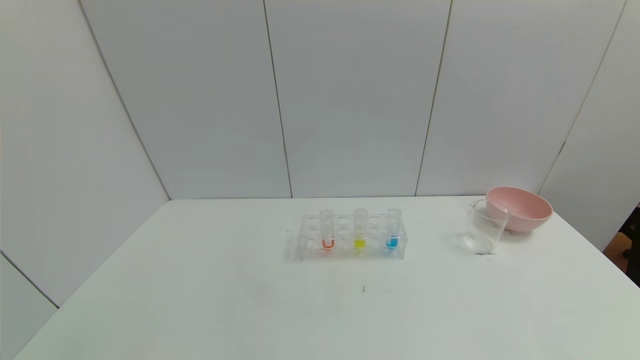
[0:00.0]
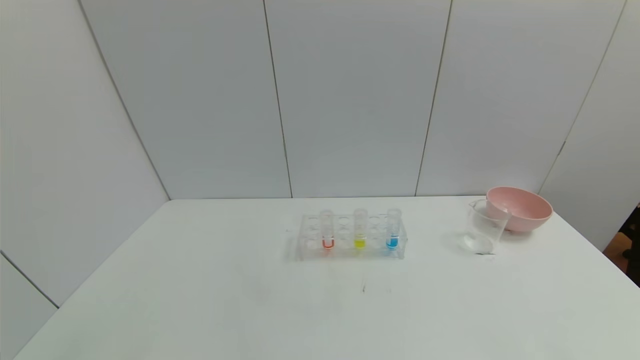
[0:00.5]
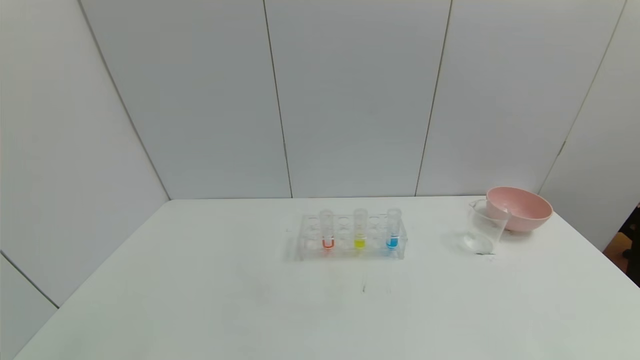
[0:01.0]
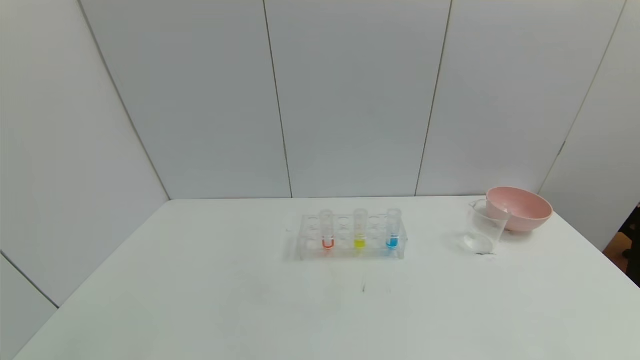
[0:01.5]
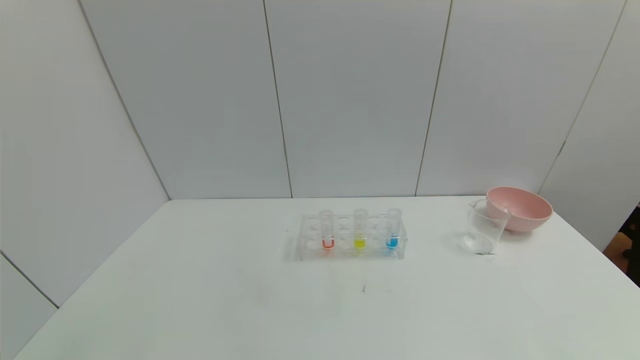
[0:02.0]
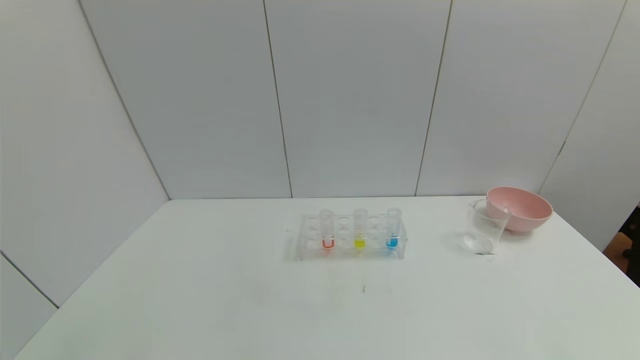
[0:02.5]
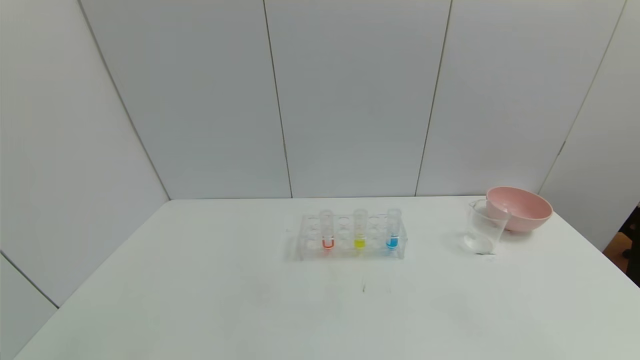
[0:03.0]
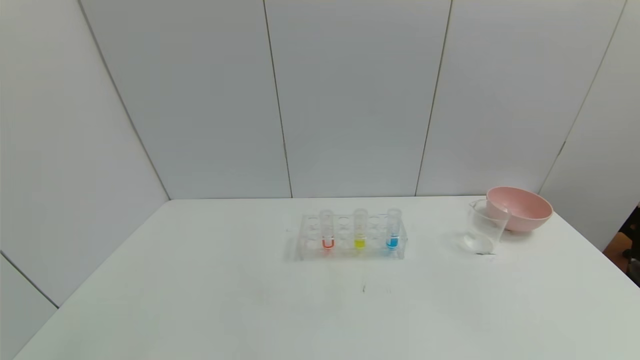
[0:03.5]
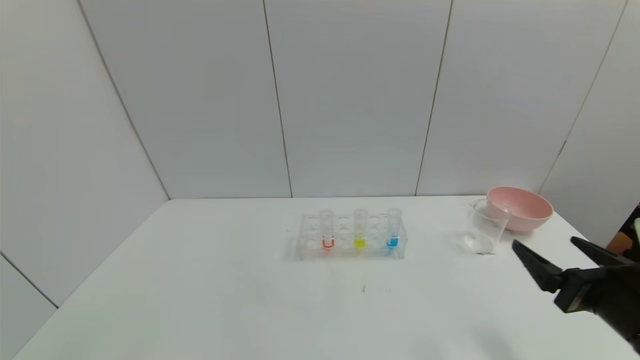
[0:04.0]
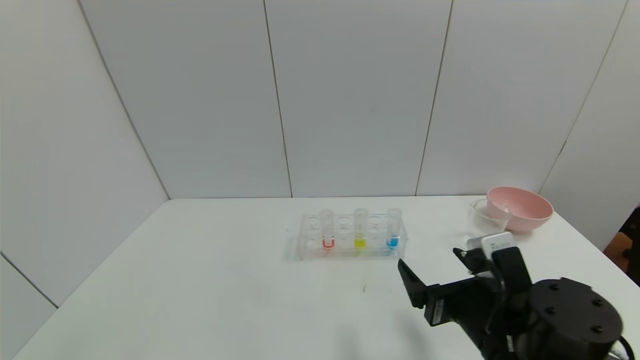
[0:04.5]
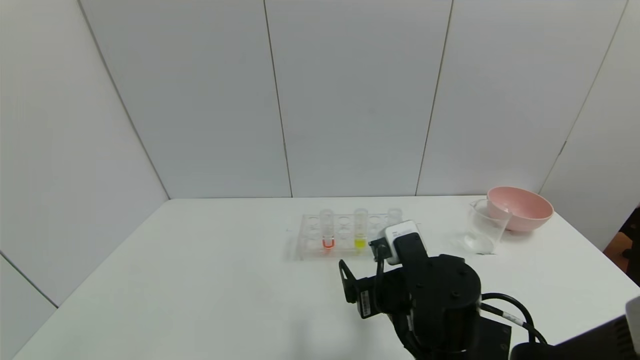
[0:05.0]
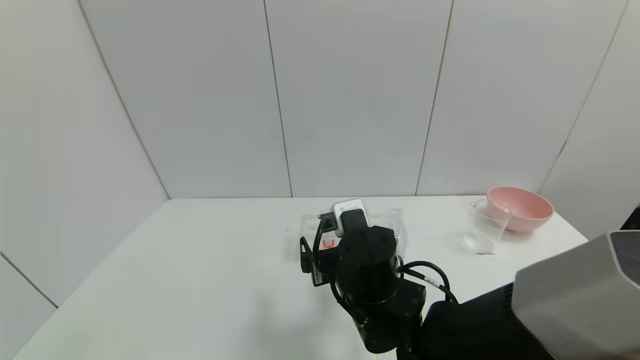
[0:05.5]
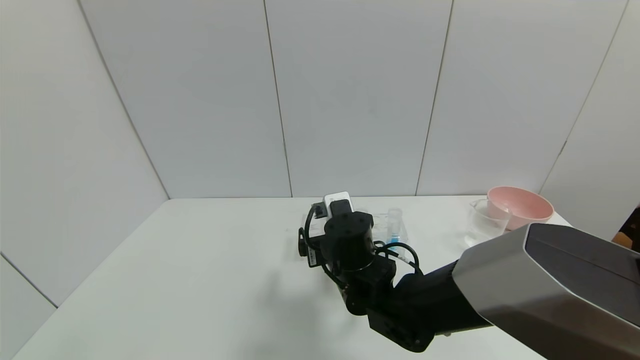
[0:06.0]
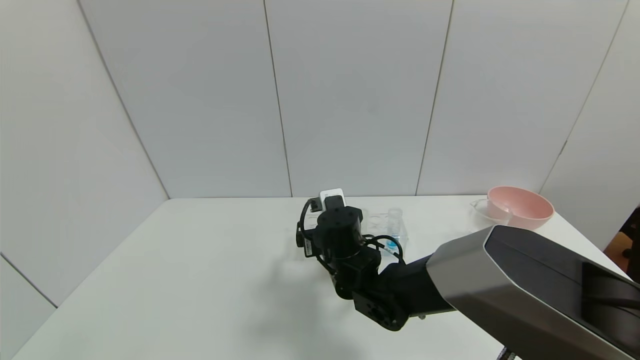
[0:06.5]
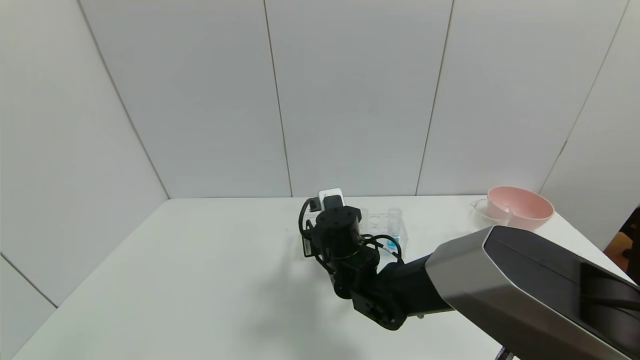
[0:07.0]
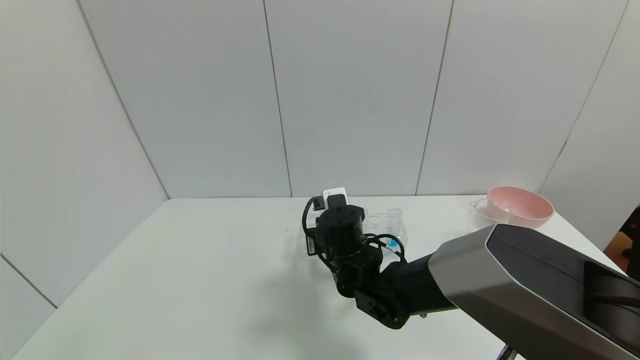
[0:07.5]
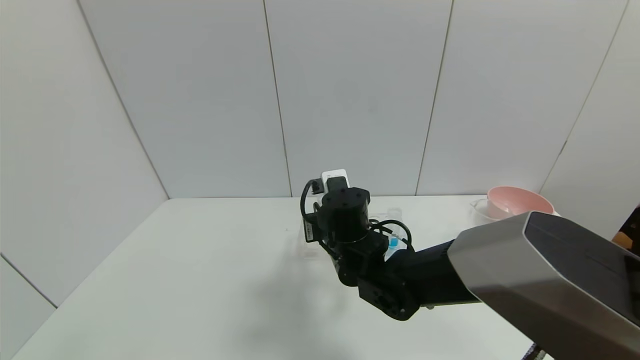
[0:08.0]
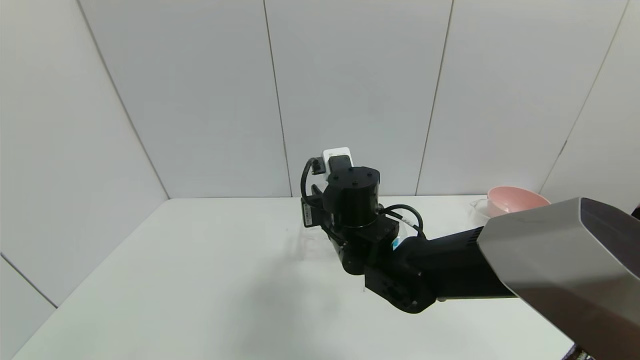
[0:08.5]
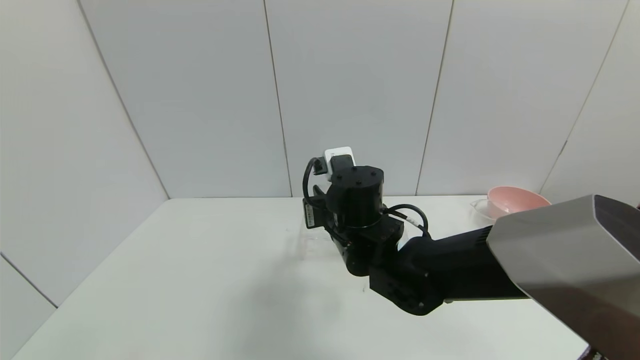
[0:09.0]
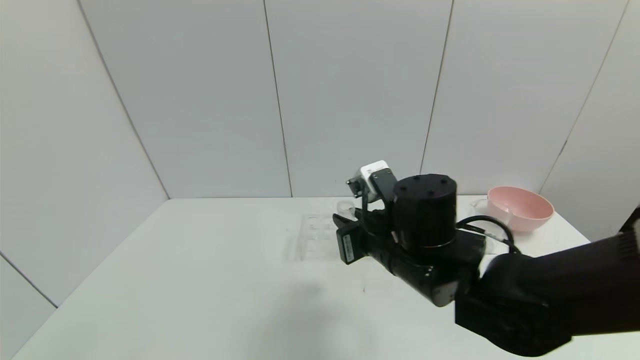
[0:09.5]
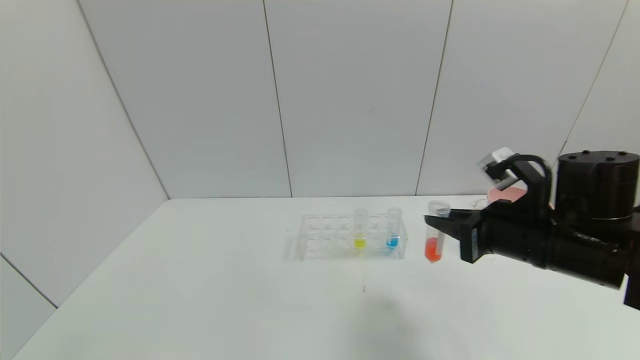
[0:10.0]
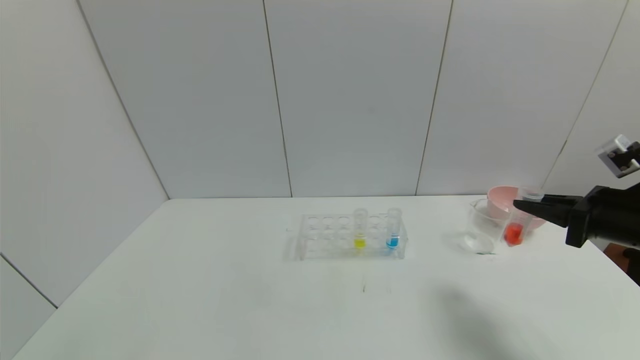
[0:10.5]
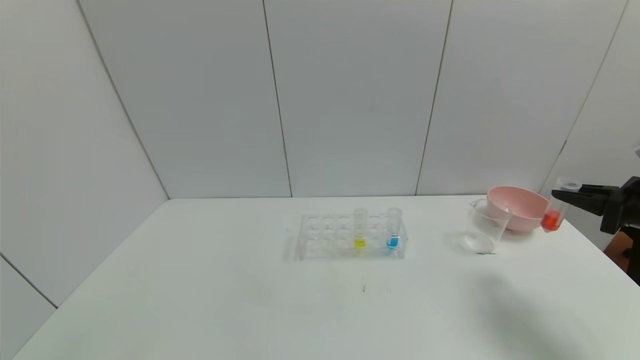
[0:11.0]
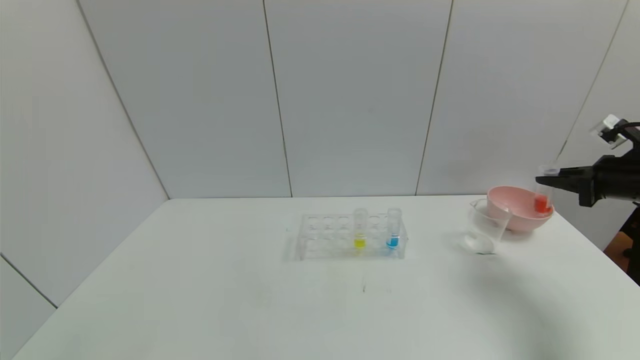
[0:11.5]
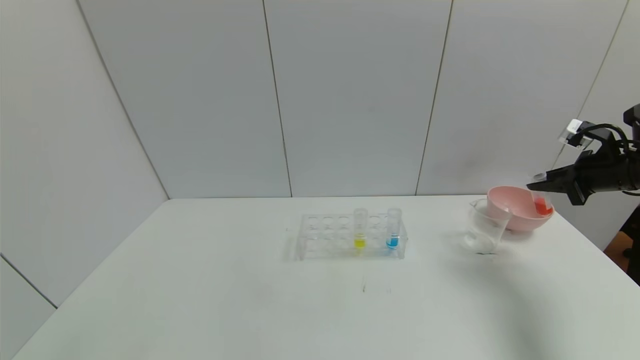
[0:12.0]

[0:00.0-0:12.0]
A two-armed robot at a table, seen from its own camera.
Task of the whole recording: pick up the test tube with red pigment and the test tube with blue pigment by grippers and pour them into the container.
Step, 0:00.0 to 0:07.5: Grasp the red reagent with the right gripper.
0:00.0 to 0:02.0: Neither gripper changes place.
0:02.0 to 0:04.0: The right gripper travels forward by some 20 cm.
0:04.0 to 0:06.0: The right gripper shifts some 30 cm to the left and forward.
0:06.0 to 0:08.0: The right gripper closes up.
0:08.0 to 0:10.0: The right gripper goes some 25 cm to the right.
0:10.0 to 0:12.0: The right gripper travels to the right and forward by roughly 25 cm.

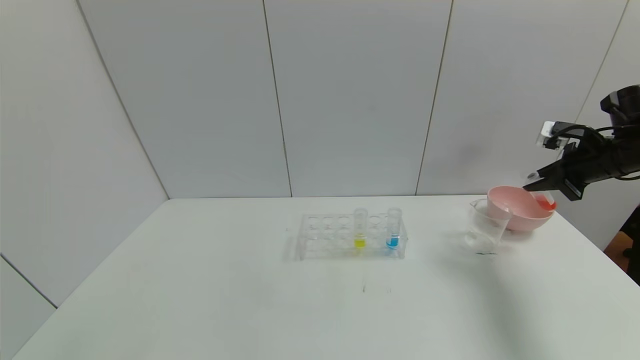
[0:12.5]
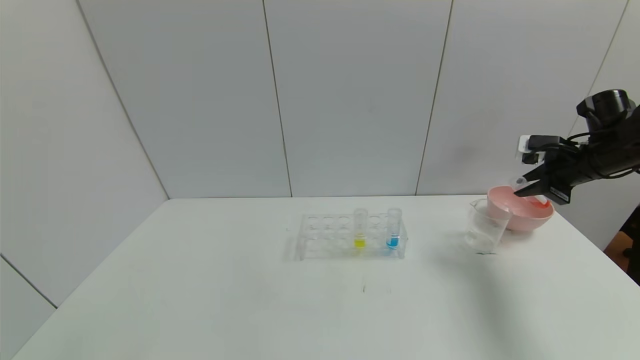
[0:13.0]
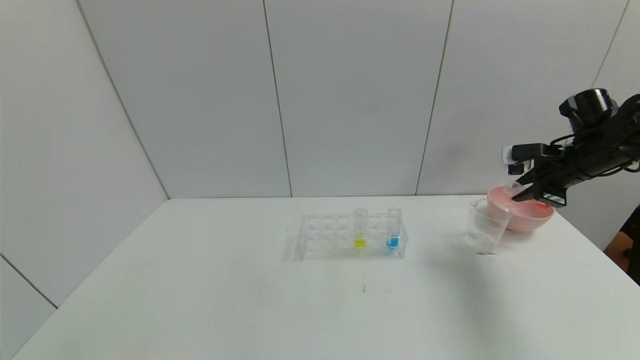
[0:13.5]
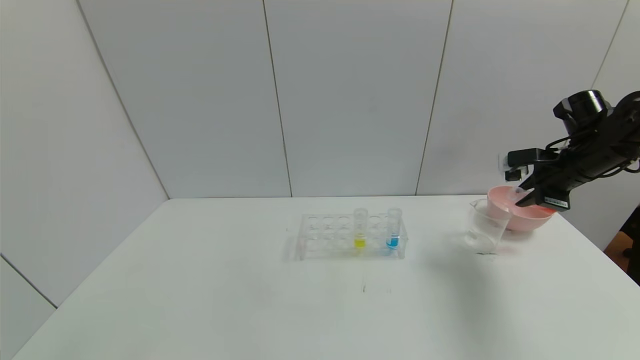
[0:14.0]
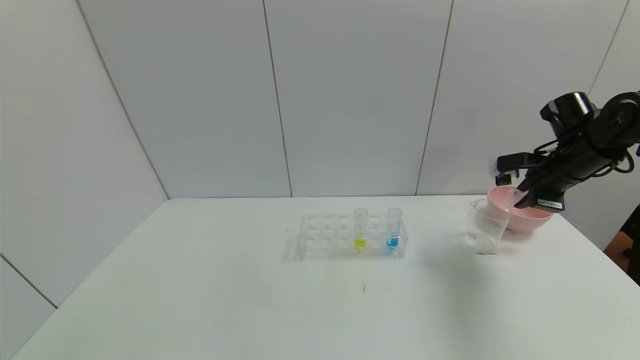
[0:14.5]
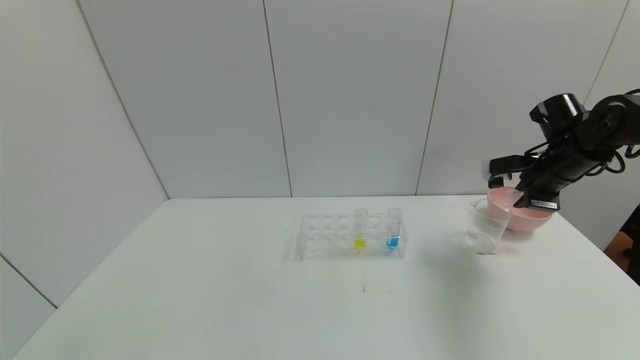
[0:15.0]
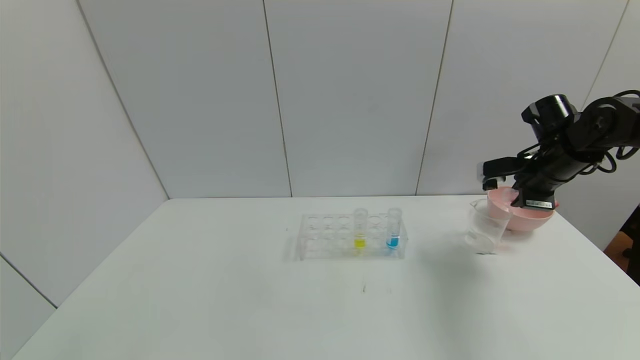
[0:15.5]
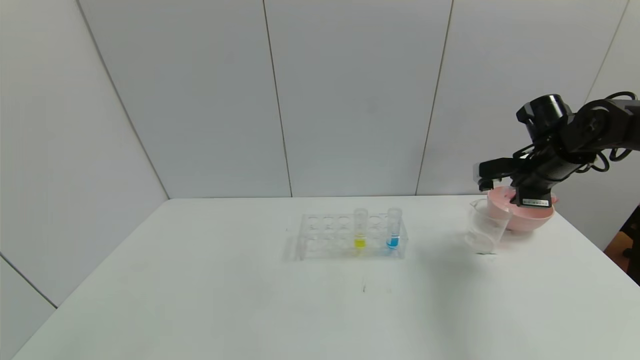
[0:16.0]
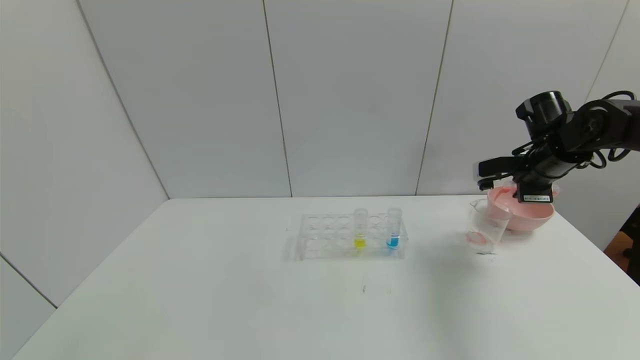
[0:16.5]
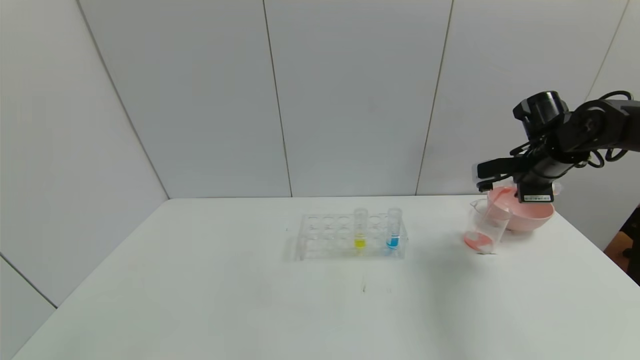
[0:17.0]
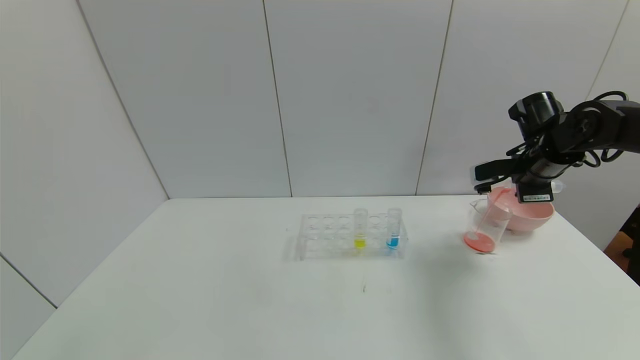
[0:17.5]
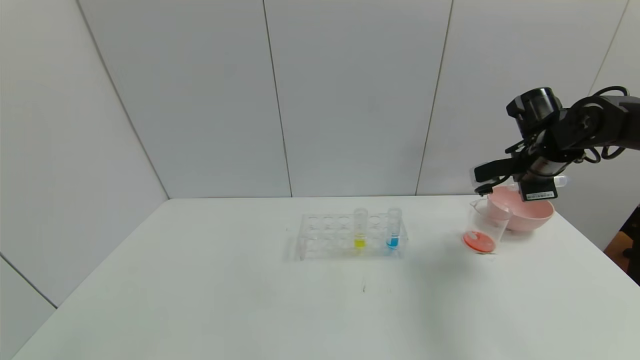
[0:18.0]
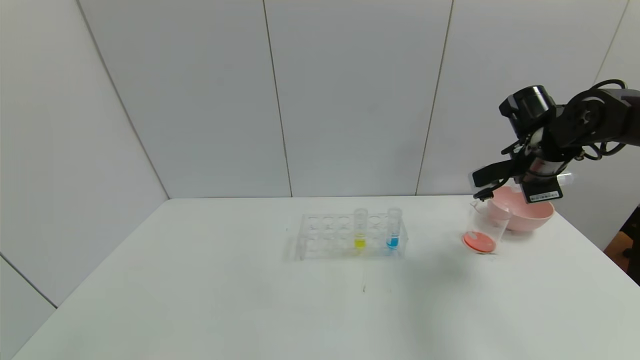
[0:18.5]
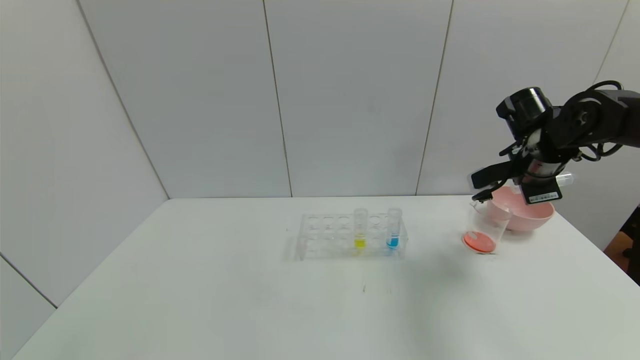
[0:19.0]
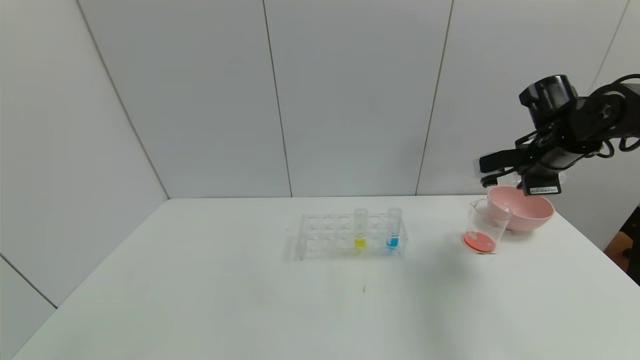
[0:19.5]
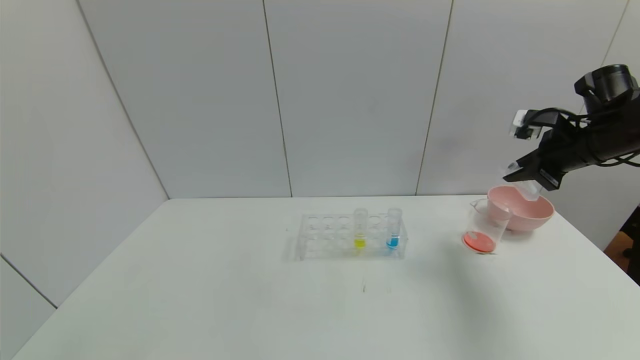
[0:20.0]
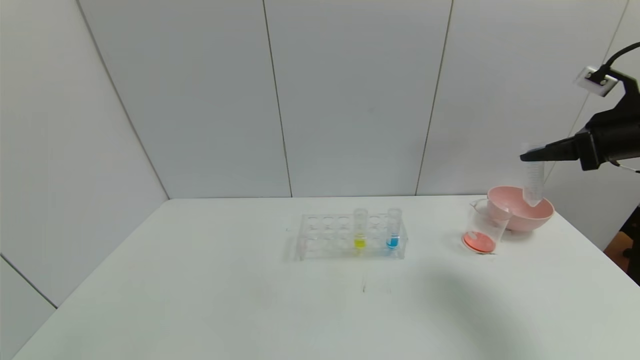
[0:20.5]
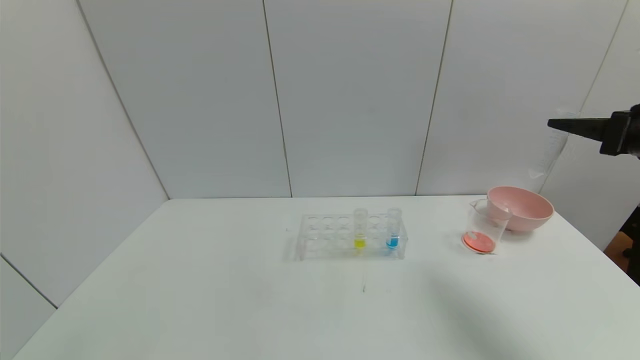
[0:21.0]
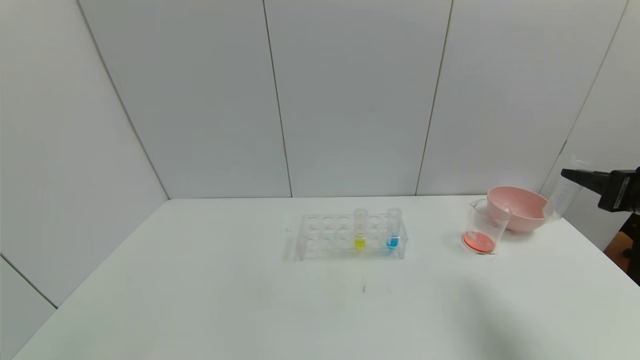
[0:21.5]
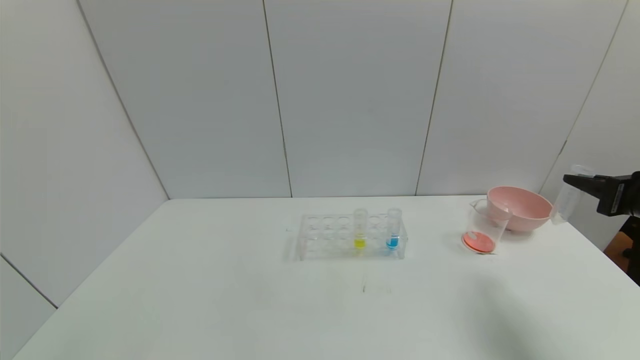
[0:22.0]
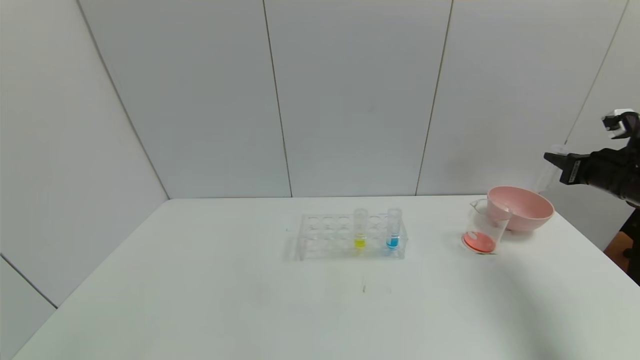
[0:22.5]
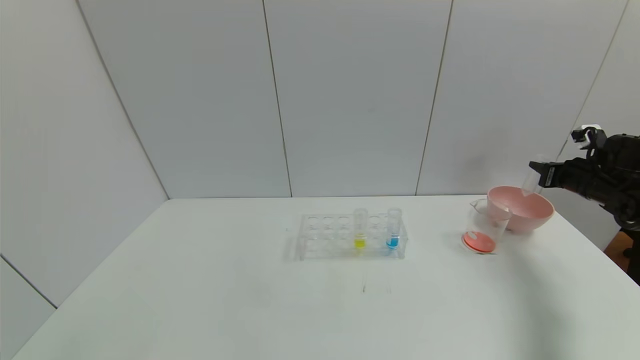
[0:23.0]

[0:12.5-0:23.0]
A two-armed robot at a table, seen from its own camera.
Task of the whole recording: pick up the test tube with red pigment and the test tube with blue pigment by grippers and pour them into the container.
Step, 0:12.5 to 0:18.0: Pour the red reagent into the graduated cylinder with the right gripper.
0:12.5 to 0:14.5: The right gripper moves to the left, roughly 5 cm.
0:14.5 to 0:16.5: There are only small adjustments of the grippers.
0:16.5 to 0:19.0: There are only small adjustments of the grippers.
0:19.0 to 0:21.0: The right gripper shifts roughly 15 cm backward, to the right and upward.
0:21.0 to 0:23.0: The right gripper goes roughly 20 cm forward, downward and to the right.
